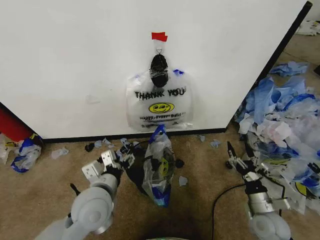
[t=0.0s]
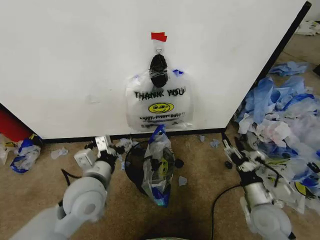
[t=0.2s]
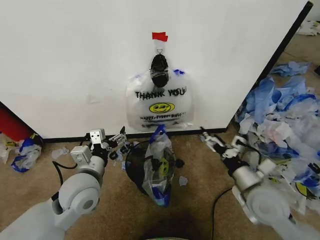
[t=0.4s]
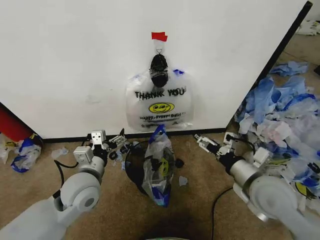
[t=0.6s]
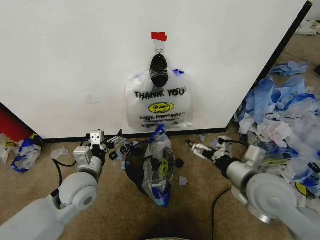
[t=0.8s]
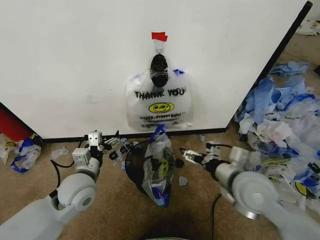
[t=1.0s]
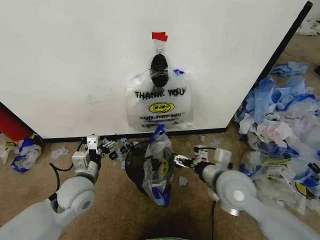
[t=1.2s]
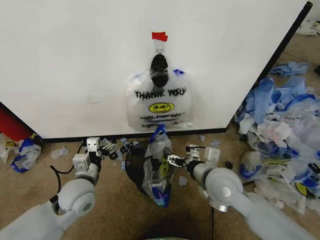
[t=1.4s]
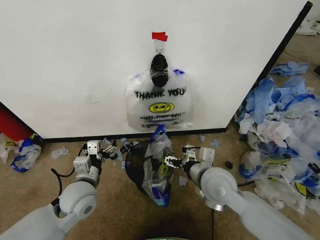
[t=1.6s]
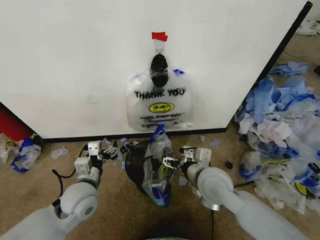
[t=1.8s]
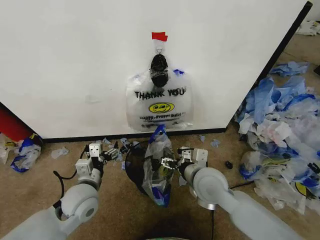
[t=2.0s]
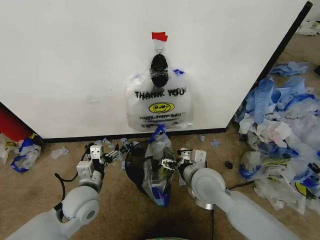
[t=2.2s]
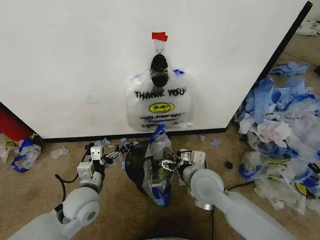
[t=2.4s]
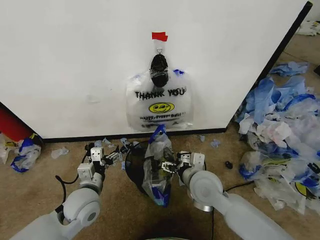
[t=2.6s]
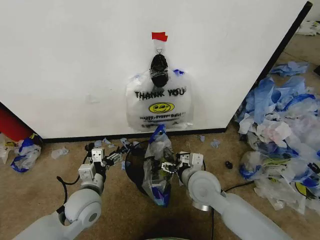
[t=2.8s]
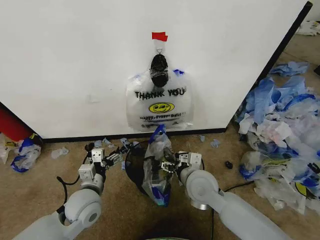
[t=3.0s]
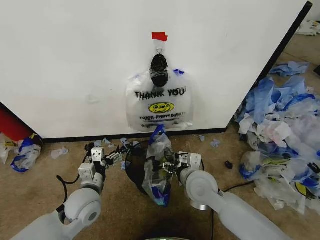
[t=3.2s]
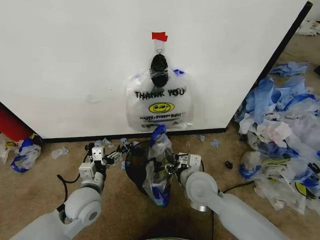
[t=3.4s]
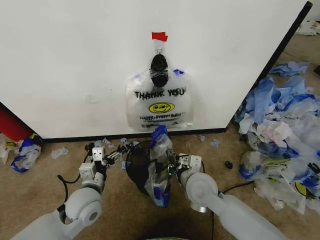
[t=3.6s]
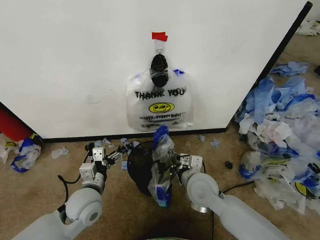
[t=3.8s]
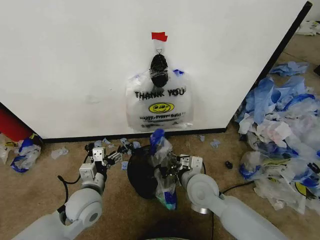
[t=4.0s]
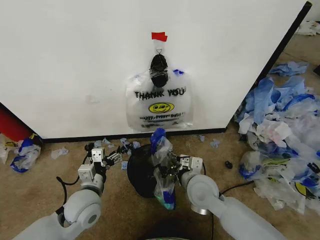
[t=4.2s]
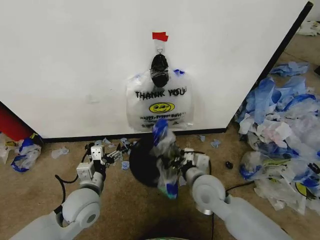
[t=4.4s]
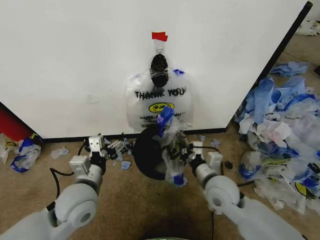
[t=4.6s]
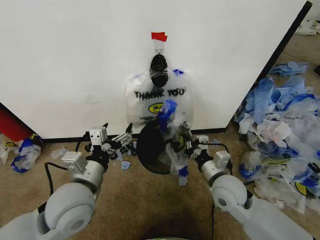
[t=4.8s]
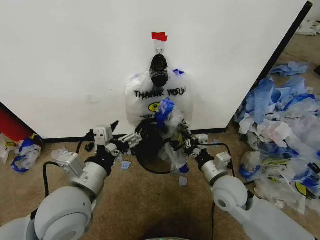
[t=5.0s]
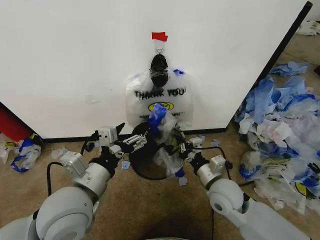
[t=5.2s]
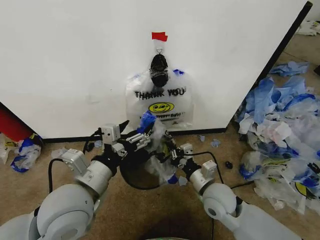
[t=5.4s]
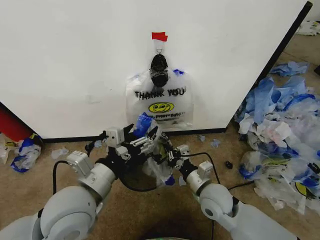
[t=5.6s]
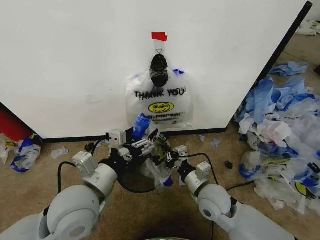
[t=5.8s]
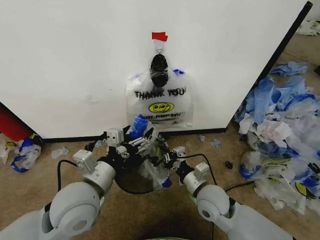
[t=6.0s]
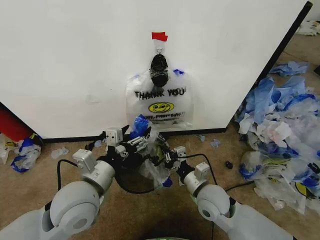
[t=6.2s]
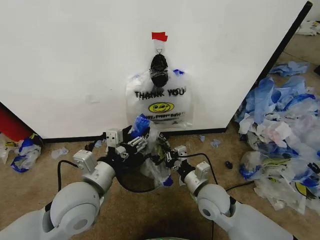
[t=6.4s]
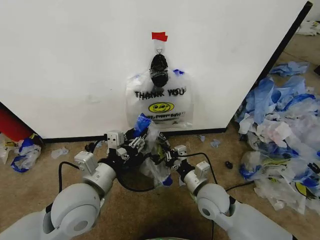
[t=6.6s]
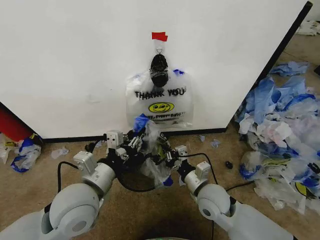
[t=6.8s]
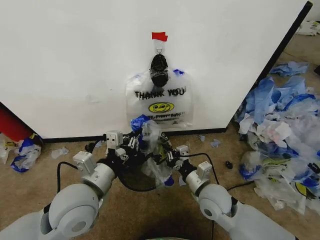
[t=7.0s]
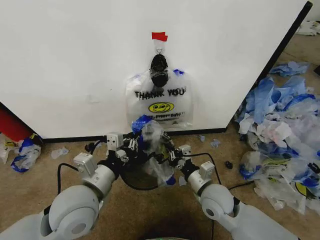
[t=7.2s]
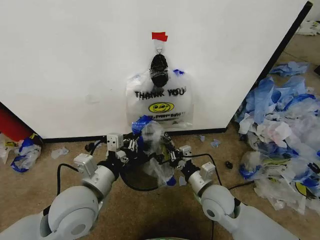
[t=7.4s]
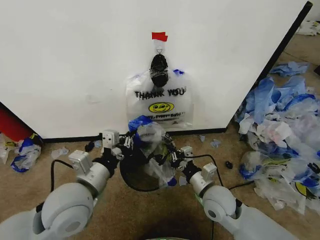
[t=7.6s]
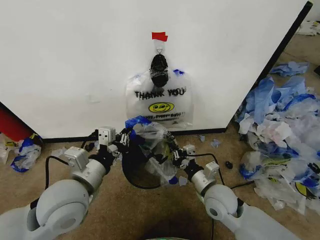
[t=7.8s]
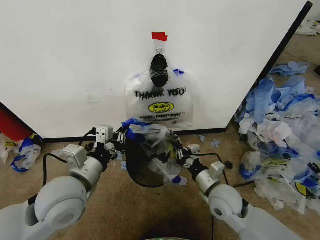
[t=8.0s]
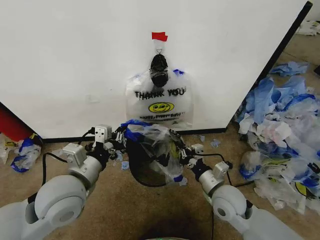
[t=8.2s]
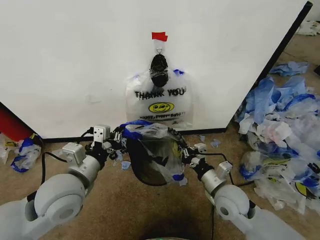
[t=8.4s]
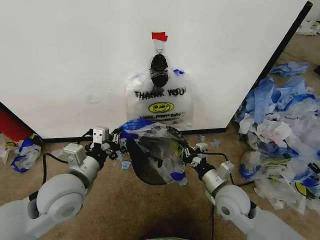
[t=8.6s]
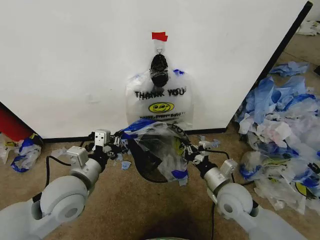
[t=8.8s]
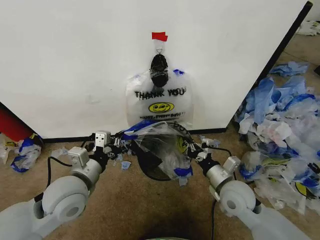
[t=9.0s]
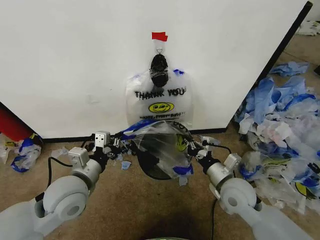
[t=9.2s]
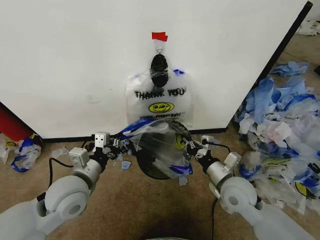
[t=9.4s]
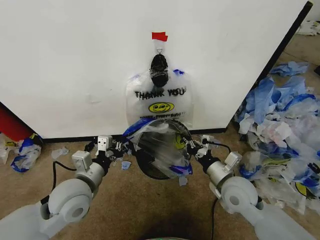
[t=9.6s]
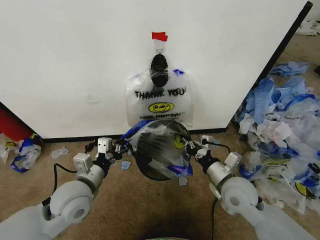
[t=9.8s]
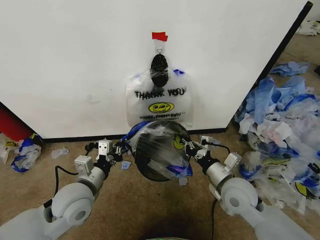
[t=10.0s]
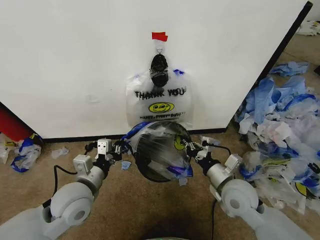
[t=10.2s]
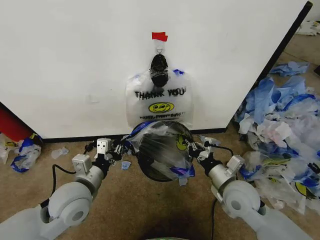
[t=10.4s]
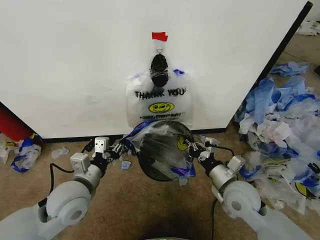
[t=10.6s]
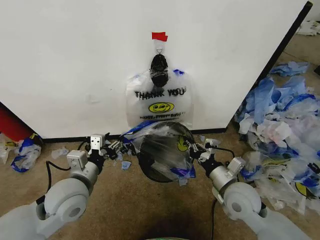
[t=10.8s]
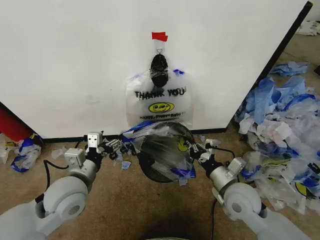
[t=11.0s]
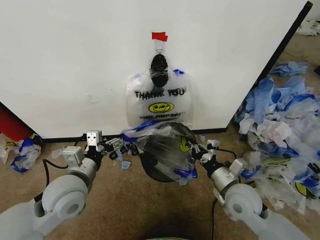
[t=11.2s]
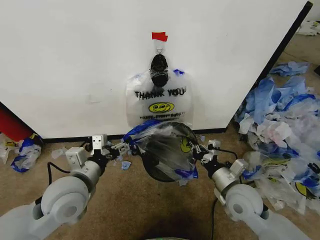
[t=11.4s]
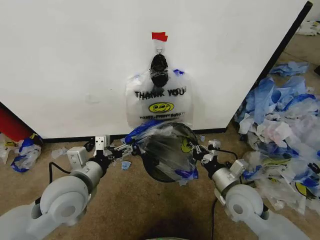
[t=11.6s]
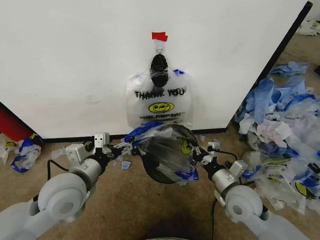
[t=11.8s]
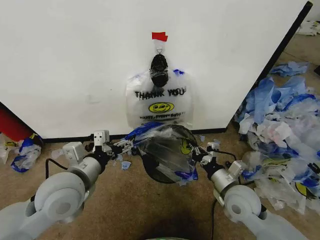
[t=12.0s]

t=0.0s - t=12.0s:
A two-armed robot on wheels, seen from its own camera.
Task of the whole recording: Pick up the garbage bag from the wall and place it over the trash bin.
t=0.0s - t=1.6s: The right gripper shifts about 25 cm to the left and upward. The left gripper is displaced to the left by roughly 5 cm.
t=1.6s - t=3.0s: The right gripper shifts by approximately 5 cm.
t=3.0s - t=4.4s: The right gripper closes up.
t=4.4s - t=6.0s: The left gripper moves upward, about 10 cm.
t=6.0s - t=7.6s: The left gripper closes.
t=7.6s - t=9.0s: The right gripper is displaced to the right by about 5 cm. The left gripper changes place by some 5 cm.
t=9.0s - t=10.4s: There are only small adjustments of the grippers.
t=10.4s - t=12.0s: The left gripper travels upward by roughly 5 cm, and opens up.

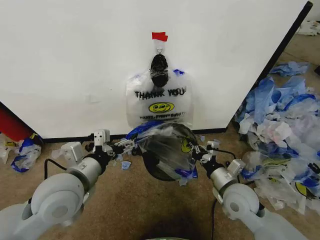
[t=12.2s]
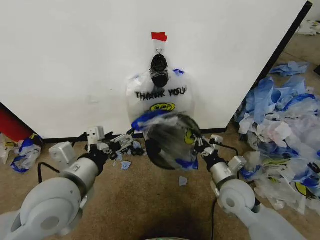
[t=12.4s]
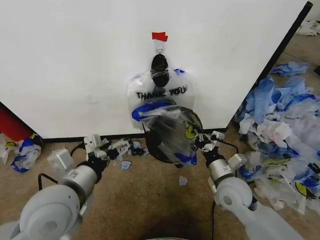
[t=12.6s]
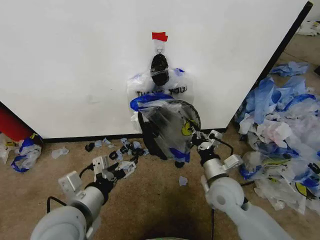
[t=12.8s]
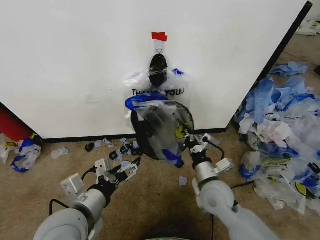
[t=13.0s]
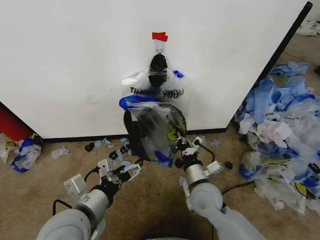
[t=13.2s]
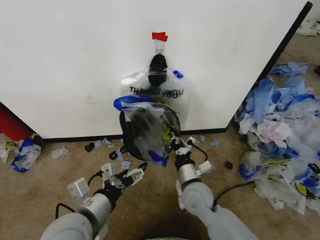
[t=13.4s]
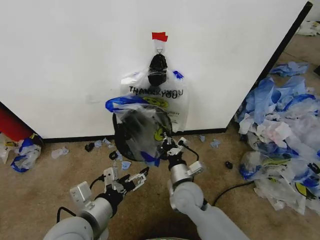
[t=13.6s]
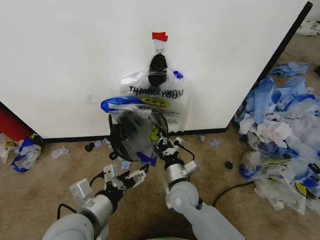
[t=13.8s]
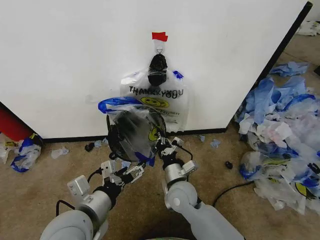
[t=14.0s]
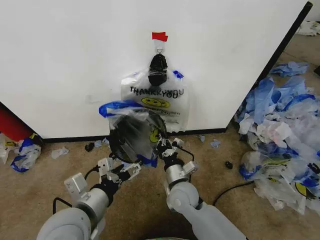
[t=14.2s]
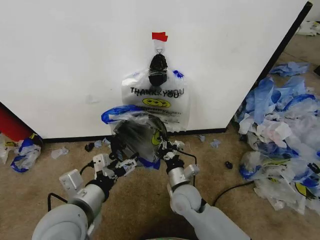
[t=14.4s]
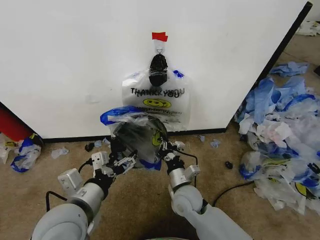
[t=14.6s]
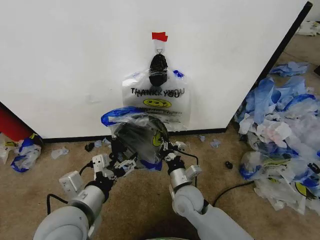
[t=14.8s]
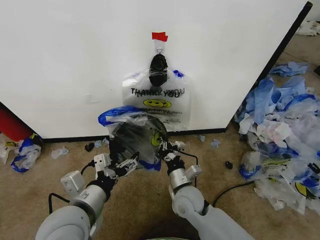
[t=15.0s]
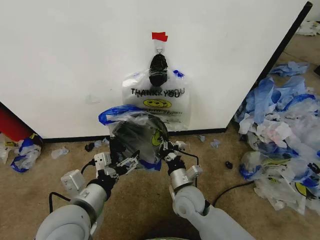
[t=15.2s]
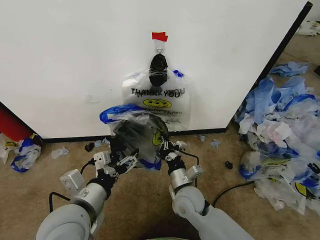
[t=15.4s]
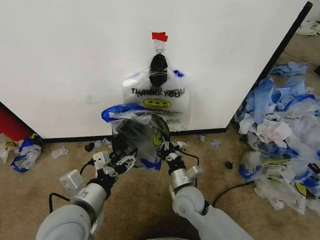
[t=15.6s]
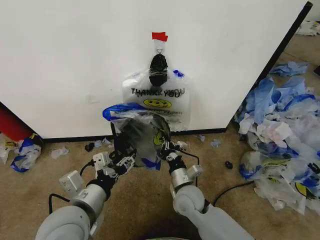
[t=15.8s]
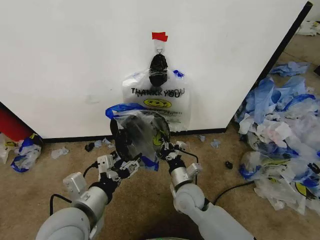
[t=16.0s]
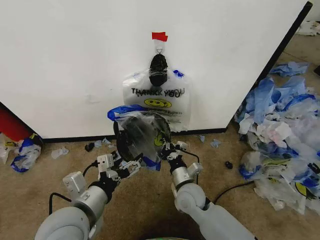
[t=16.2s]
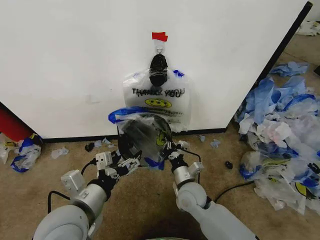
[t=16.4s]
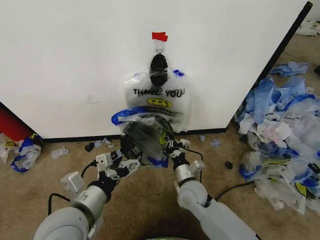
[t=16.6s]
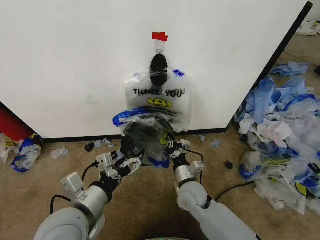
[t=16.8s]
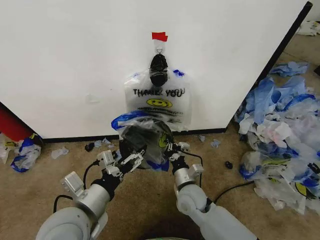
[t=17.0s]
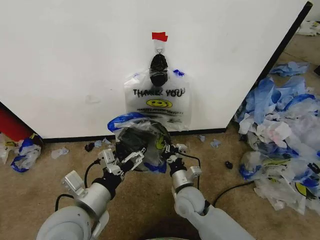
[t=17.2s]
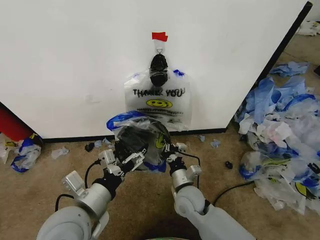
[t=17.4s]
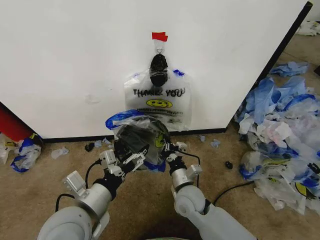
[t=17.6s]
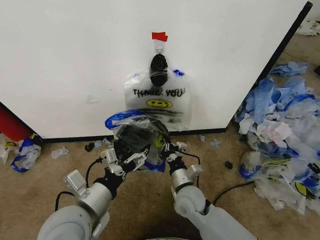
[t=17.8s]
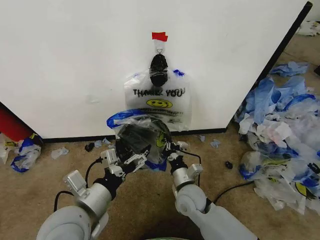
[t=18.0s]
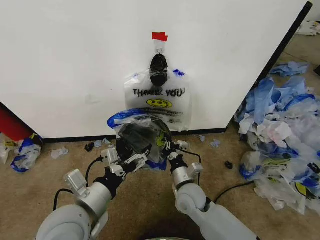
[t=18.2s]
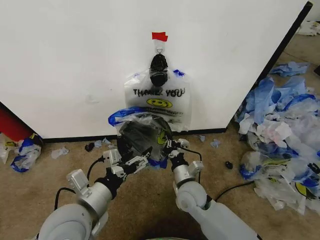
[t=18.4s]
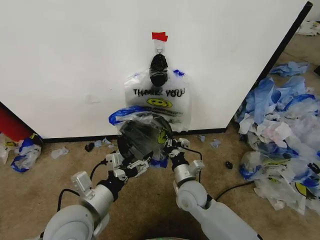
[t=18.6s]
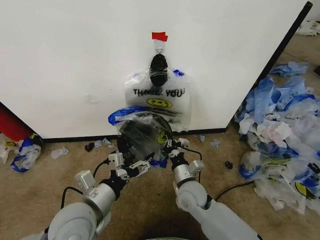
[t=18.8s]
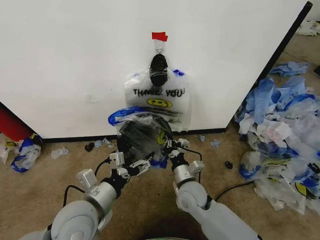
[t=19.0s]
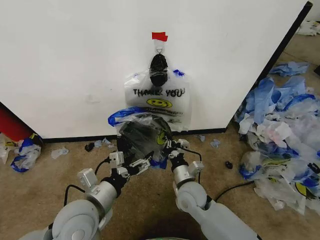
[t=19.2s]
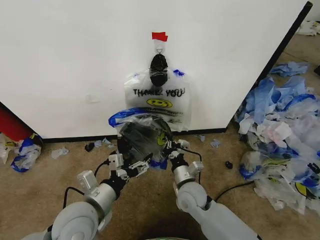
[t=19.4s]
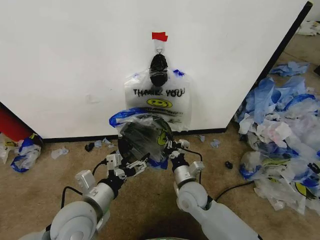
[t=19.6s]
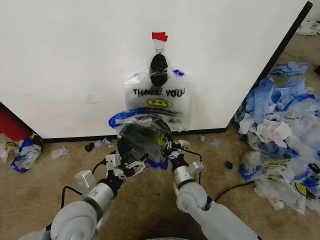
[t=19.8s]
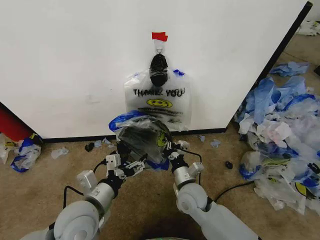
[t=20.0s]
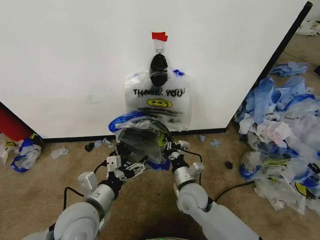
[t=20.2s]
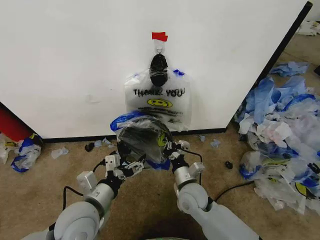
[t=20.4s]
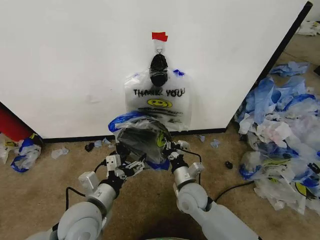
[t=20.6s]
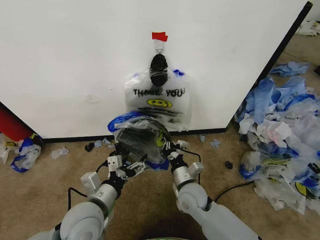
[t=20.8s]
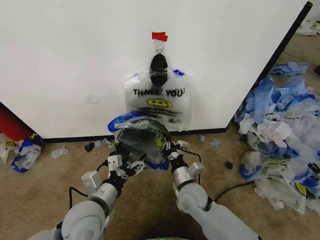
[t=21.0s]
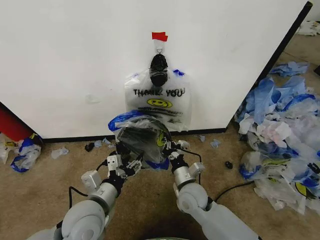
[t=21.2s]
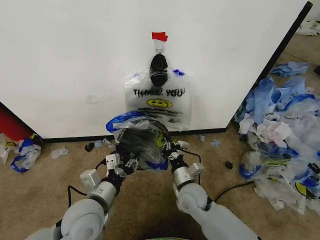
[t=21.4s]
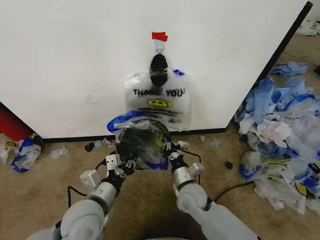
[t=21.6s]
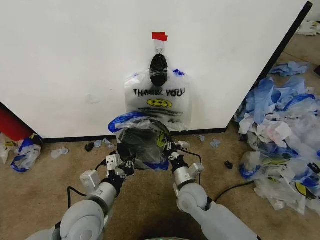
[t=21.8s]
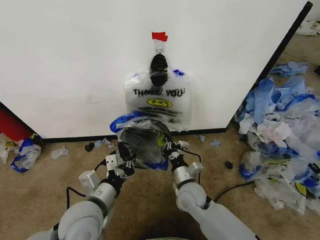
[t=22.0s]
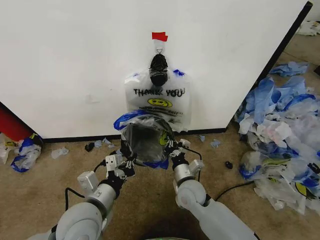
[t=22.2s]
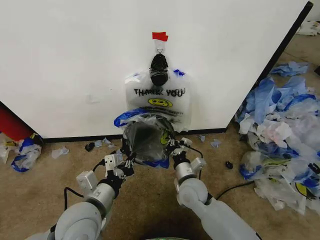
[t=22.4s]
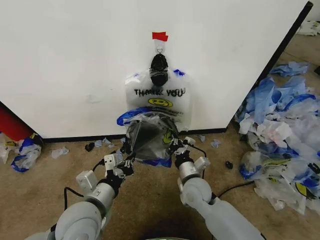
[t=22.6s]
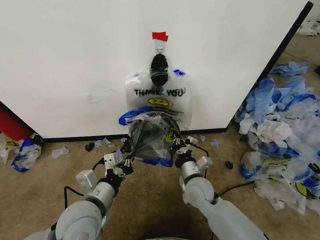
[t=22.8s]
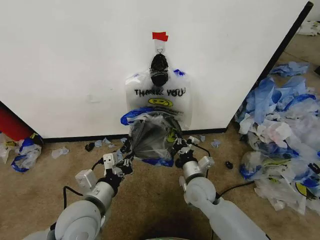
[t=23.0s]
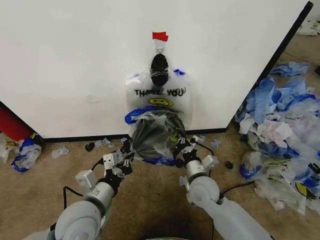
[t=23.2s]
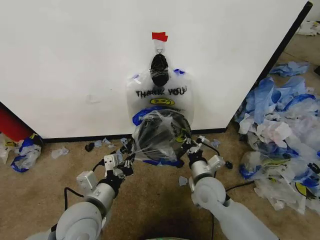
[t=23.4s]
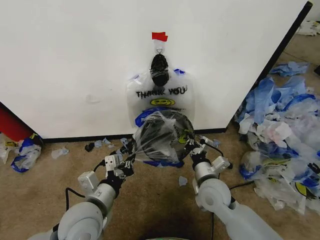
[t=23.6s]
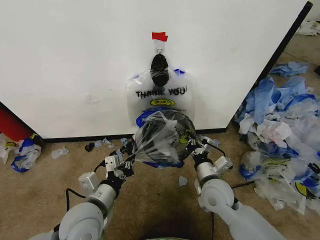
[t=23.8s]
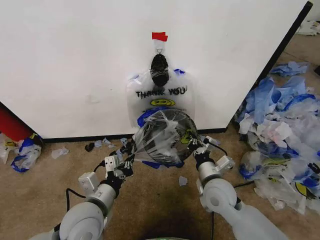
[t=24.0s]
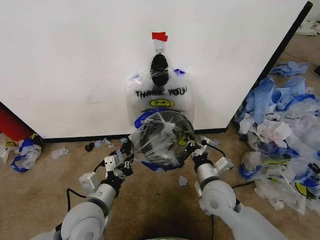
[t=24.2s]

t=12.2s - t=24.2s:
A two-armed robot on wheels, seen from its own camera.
Task of the whole recording: Pick up the garbage bag from the wall and place it over the trash bin.
t=12.2s - t=13.8s: The right gripper is displaced to the left by approximately 15 cm. Meanwhile the left gripper moves backward, some 5 cm.
t=13.8s - t=15.2s: The grippers stay close to where they were, moving slightly.
t=15.2s - t=16.6s: The left gripper closes, then reopens.
t=16.6s - t=18.2s: The grippers make only small movements.
t=18.2s - t=19.8s: The left gripper shifts by about 5 cm.
t=19.8s - t=21.2s: The left gripper closes up.
t=21.2s - t=22.6s: The left gripper closes.
t=22.6s - t=24.2s: The right gripper goes some 5 cm to the right.
